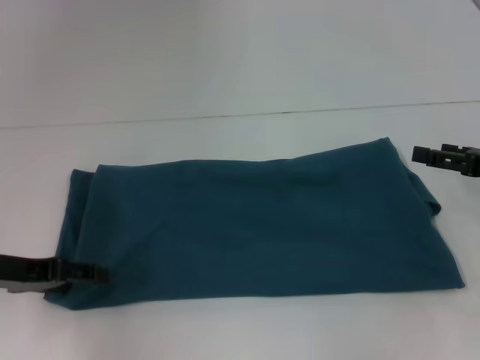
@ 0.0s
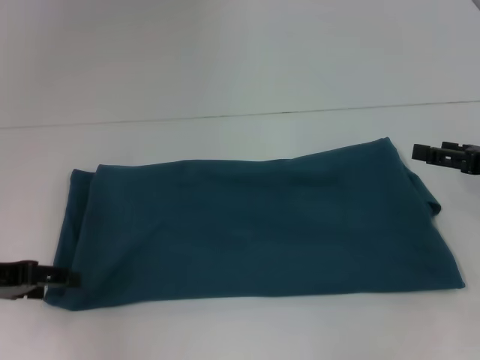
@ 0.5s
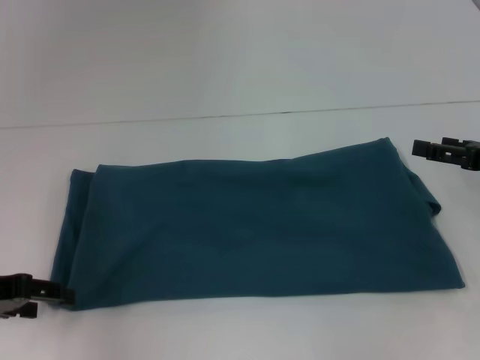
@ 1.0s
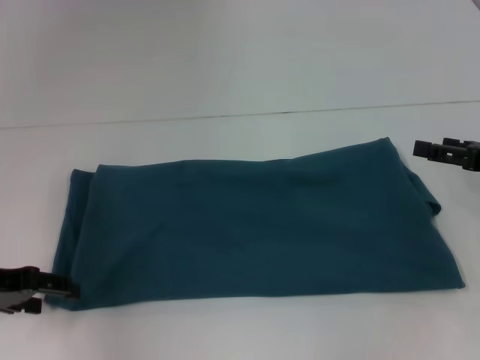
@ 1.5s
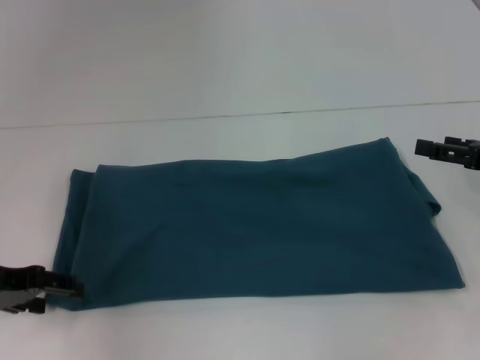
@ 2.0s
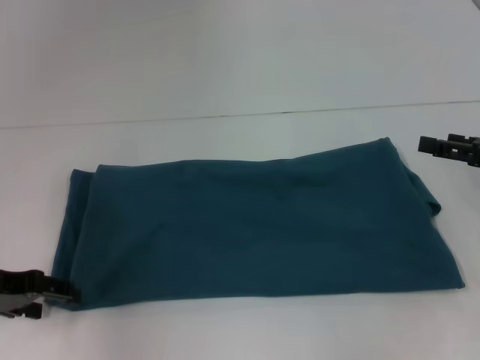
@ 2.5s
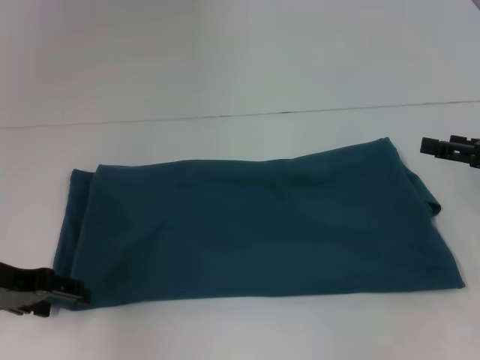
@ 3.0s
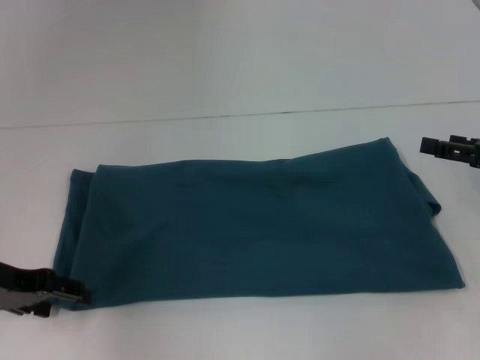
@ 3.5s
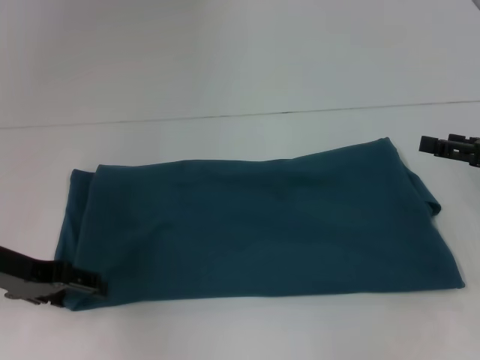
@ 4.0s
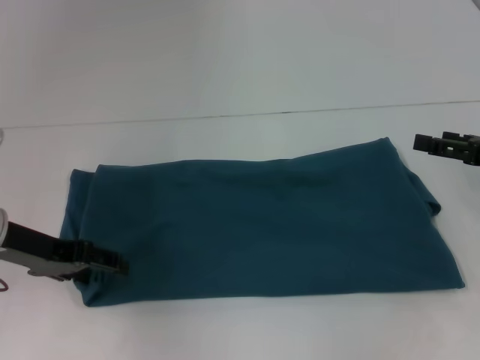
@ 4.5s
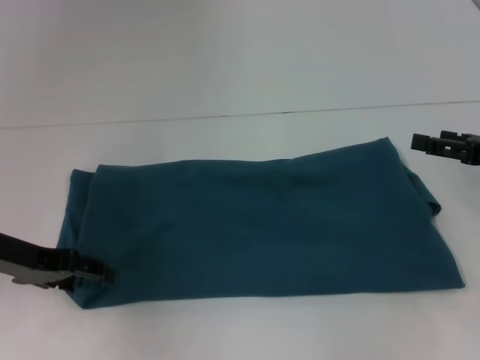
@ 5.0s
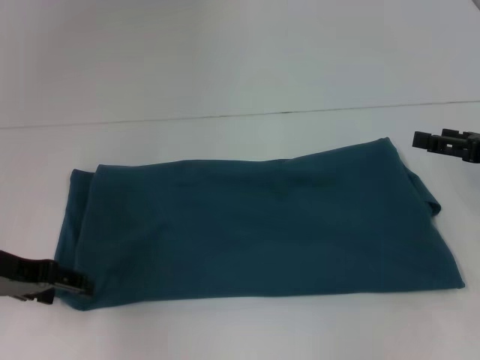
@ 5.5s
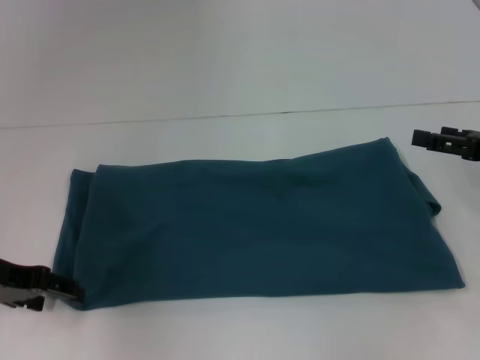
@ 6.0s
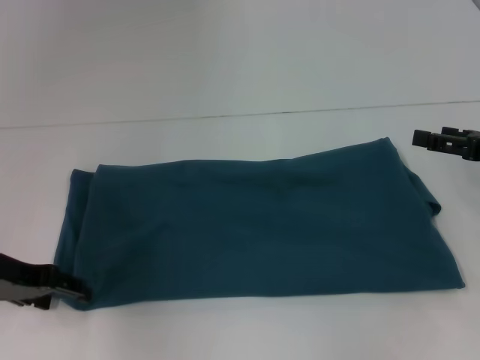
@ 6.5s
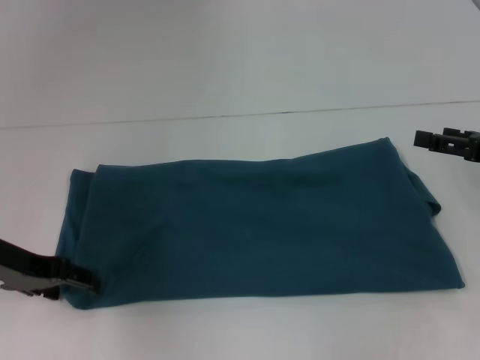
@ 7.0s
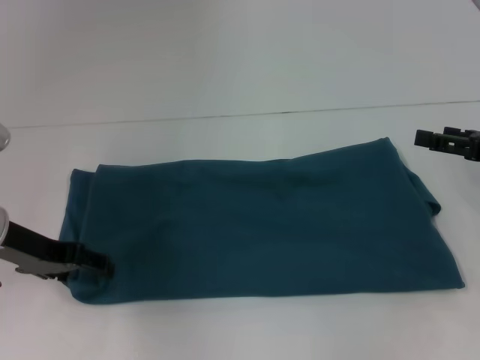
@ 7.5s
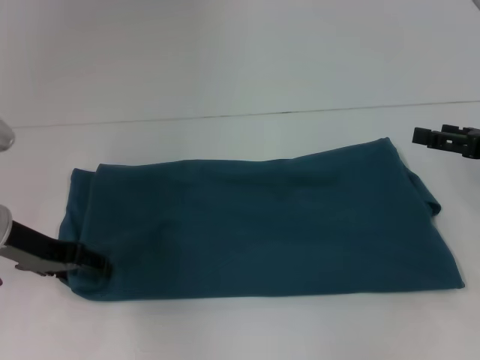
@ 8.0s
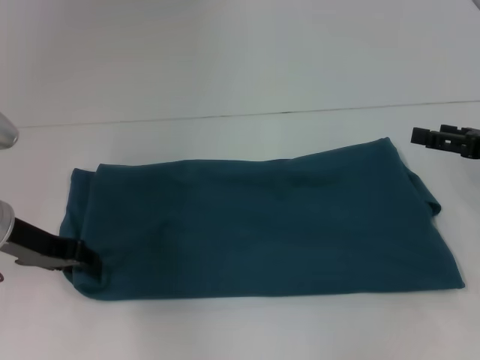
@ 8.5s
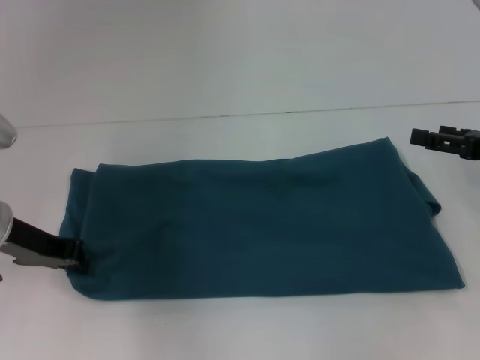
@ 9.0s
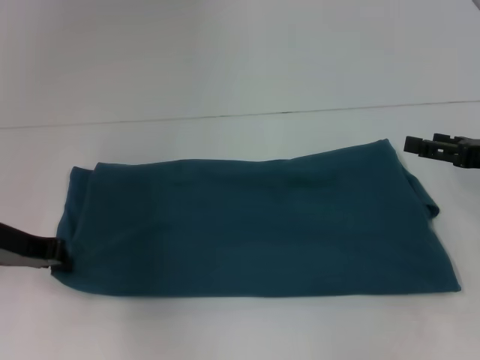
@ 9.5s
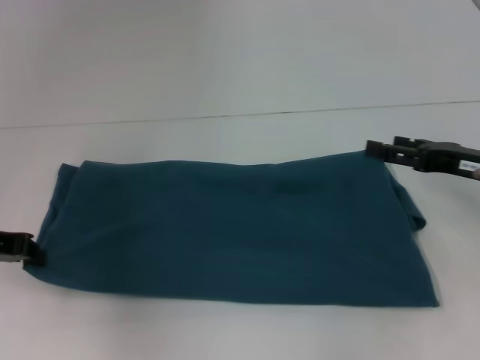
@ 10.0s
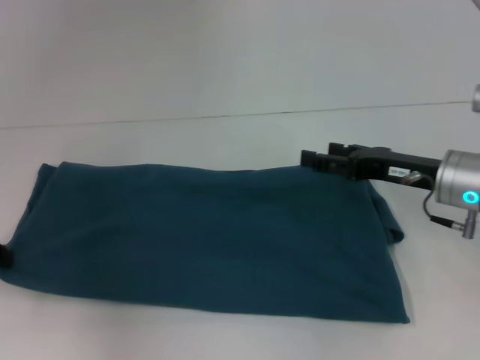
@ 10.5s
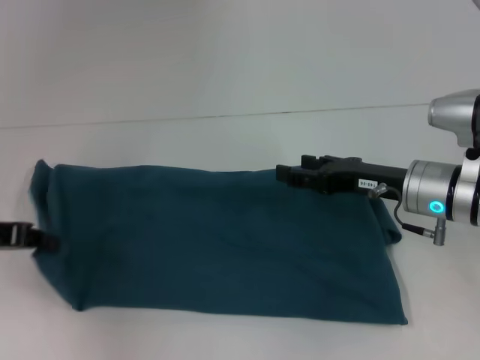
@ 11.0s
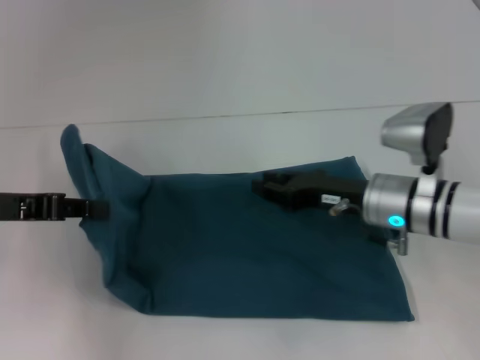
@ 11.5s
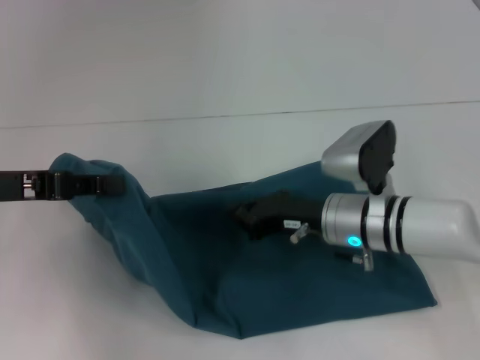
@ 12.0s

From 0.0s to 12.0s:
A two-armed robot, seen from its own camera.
From 0.0s to 8.0s: The grippers make only small movements.
From 8.0s to 10.0s: The left gripper ends up some 5 cm from where it was, and closes its fingers.
From 10.0s to 12.0s: The right gripper goes some 15 cm to the left, and closes its fingers; the left gripper ends up approximately 5 cm from where it was.

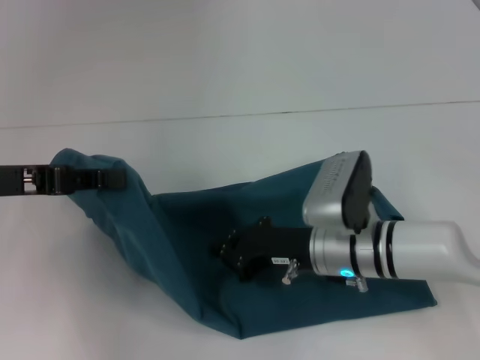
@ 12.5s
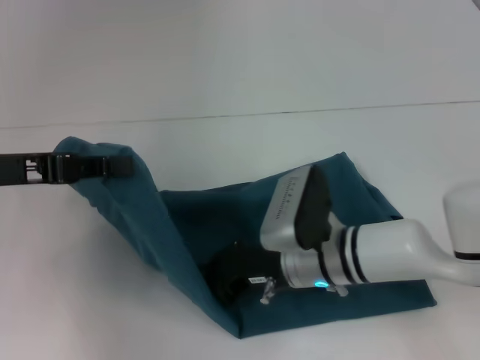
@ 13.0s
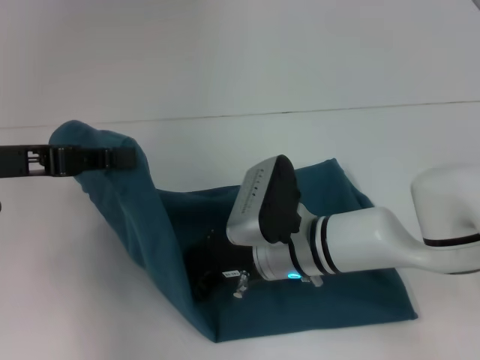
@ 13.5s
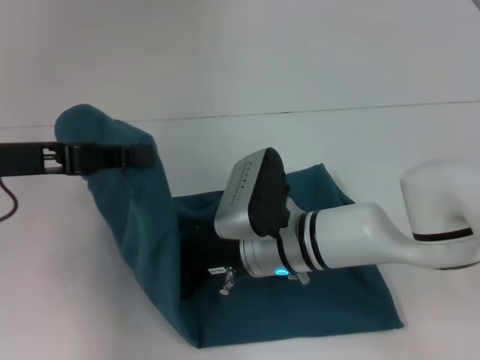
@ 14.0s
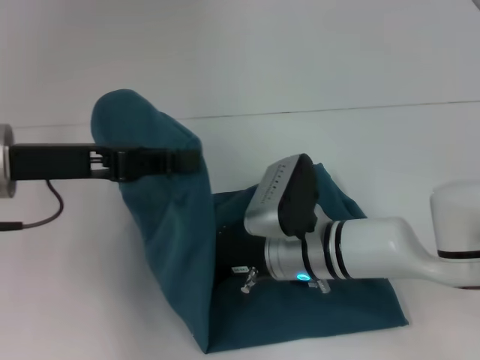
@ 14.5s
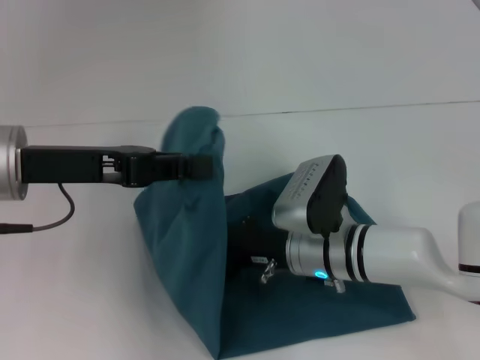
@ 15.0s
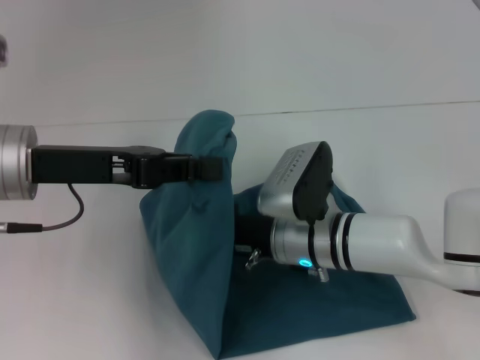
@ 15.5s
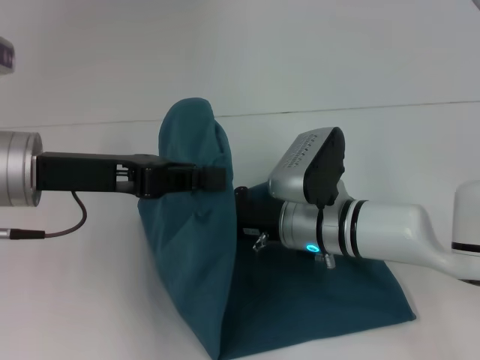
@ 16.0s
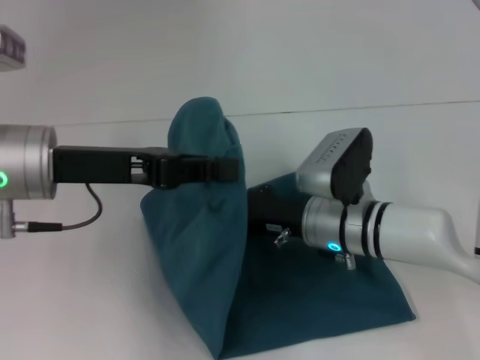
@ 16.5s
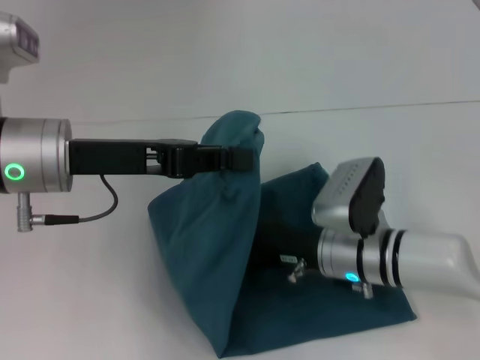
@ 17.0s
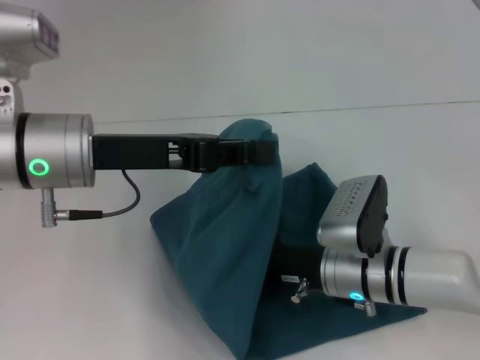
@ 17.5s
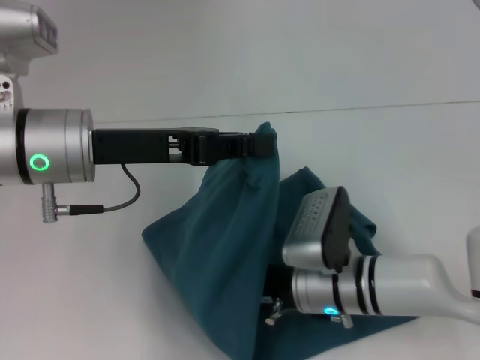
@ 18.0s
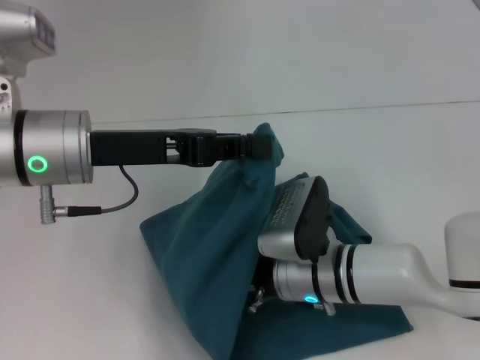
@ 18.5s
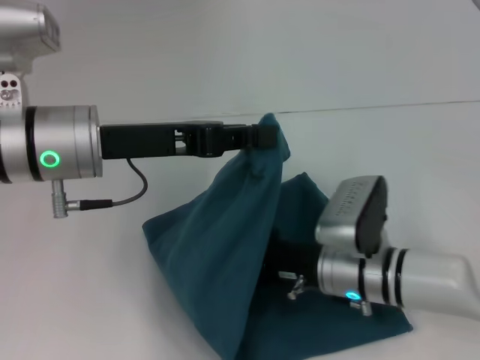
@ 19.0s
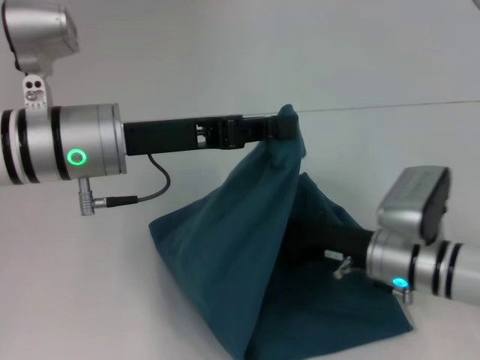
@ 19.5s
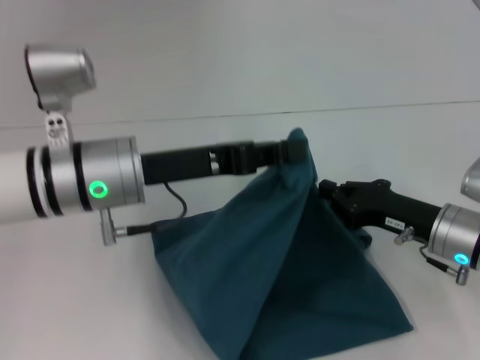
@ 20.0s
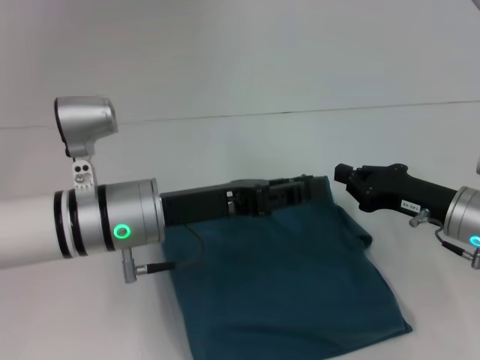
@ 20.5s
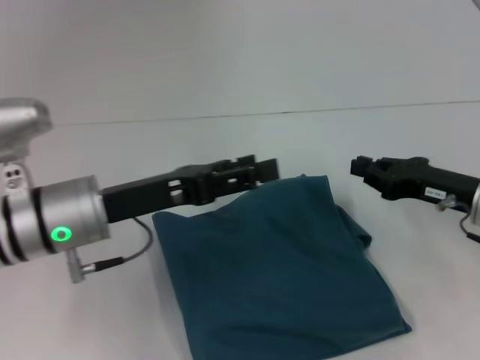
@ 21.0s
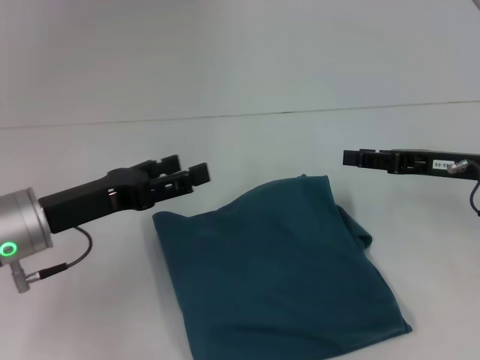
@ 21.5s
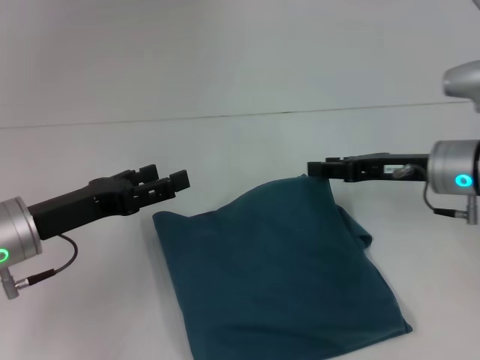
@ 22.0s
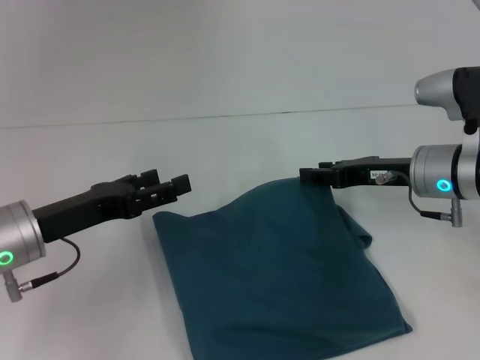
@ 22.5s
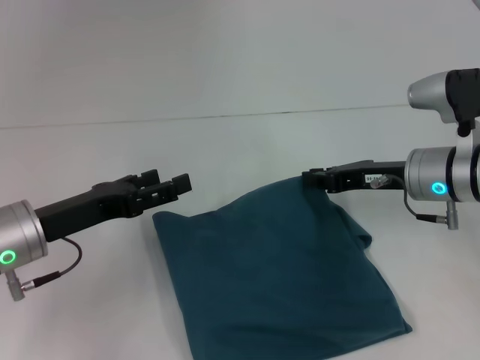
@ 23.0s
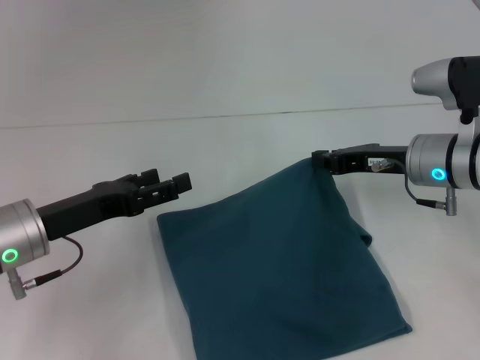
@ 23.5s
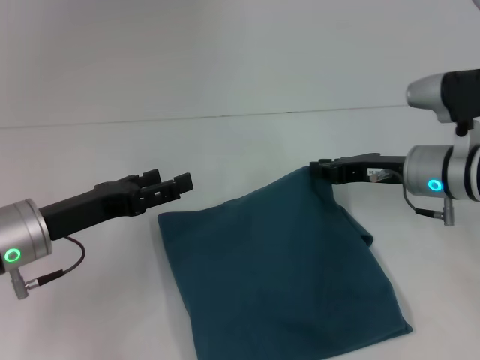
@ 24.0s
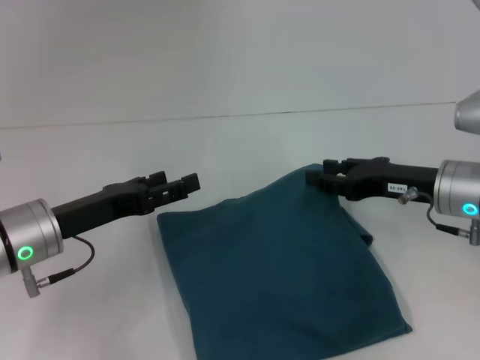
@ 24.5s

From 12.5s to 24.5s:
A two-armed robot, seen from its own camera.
Step, from 12.5s to 20.5s: Fold the clothes to the left.
From 12.5s to 14.5s: The left gripper heads to the right, covering approximately 5 cm.
From 16.5s to 18.5s: The right gripper ends up approximately 5 cm from where it was.
From 18.5s to 20.5s: The left gripper is displaced downward by some 5 cm; the right gripper is displaced to the right by approximately 20 cm.
From 20.5s to 22.5s: The right gripper is displaced forward by approximately 5 cm, and opens. The left gripper heads to the left, covering approximately 10 cm, and opens.
From 22.5s to 24.5s: The right gripper closes, then reopens.

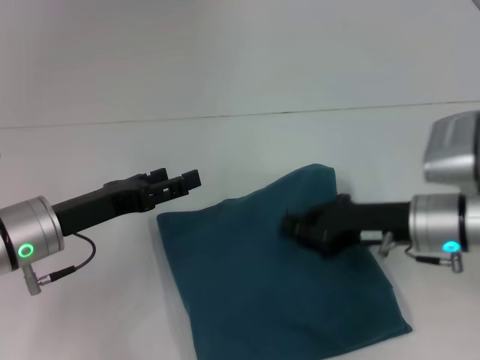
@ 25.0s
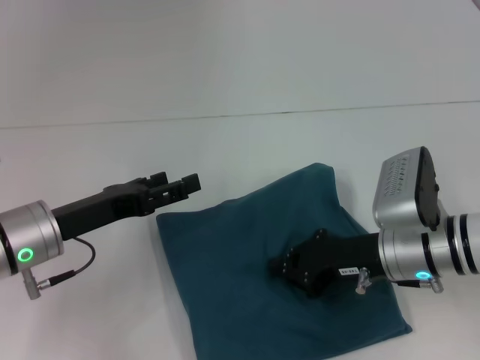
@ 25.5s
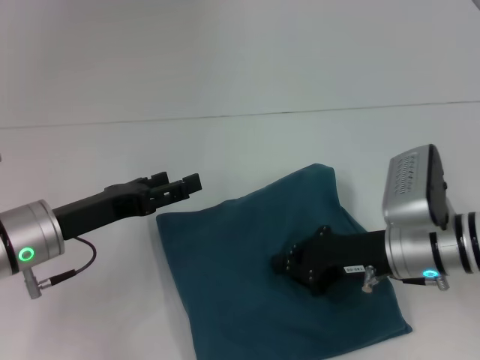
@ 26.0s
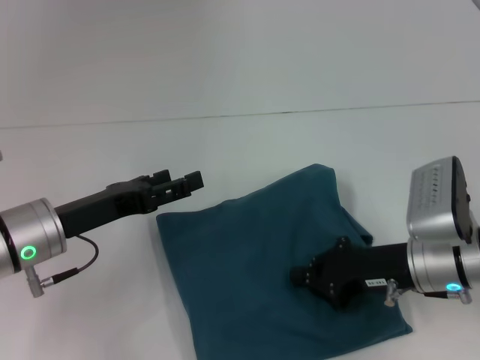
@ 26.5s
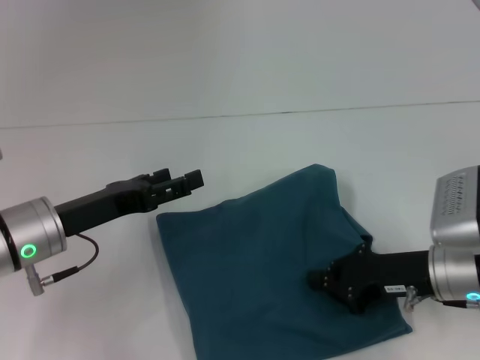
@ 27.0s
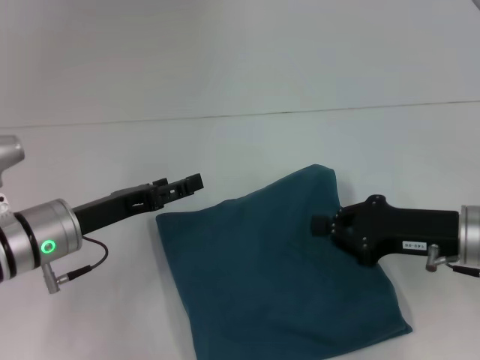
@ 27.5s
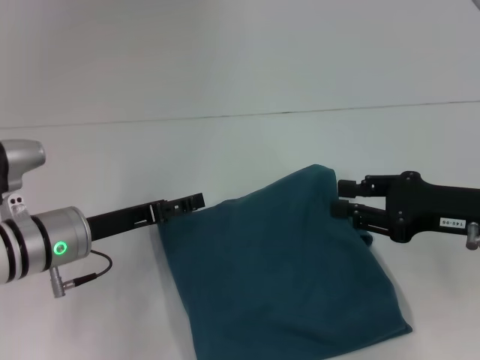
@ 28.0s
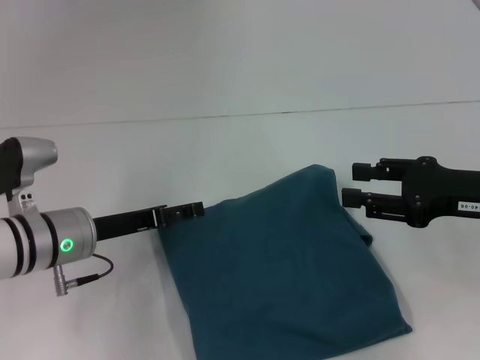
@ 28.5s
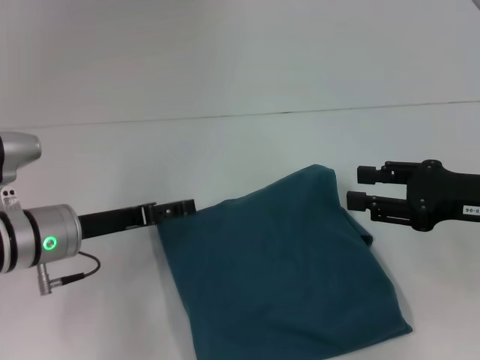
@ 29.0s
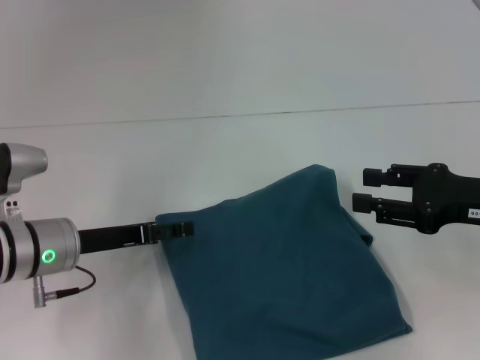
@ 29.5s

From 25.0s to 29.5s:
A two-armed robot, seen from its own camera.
From 25.0s to 27.0s: The grippers make only small movements.
From 27.0s to 29.5s: The right gripper is displaced upward and to the right by about 10 cm, and opens up.
